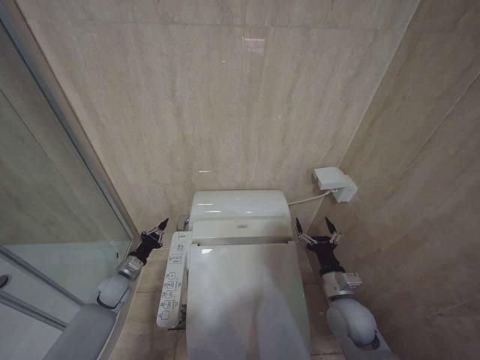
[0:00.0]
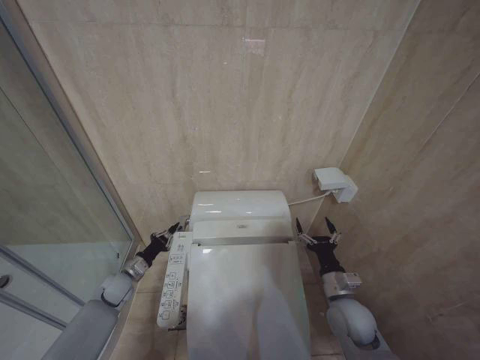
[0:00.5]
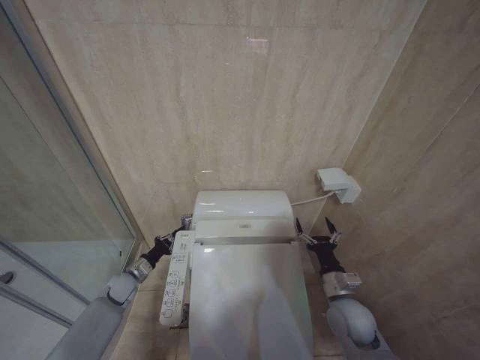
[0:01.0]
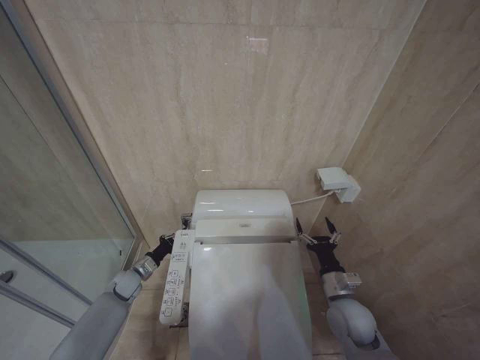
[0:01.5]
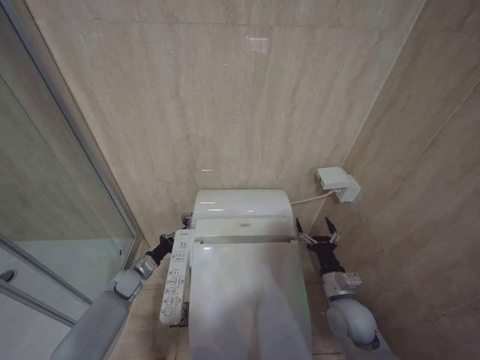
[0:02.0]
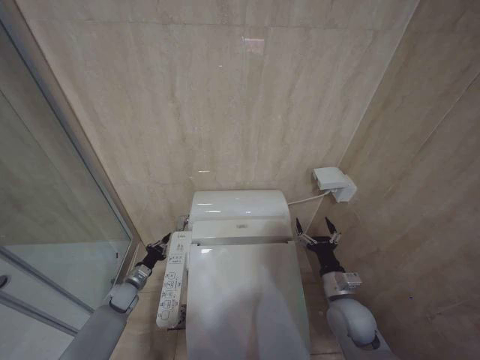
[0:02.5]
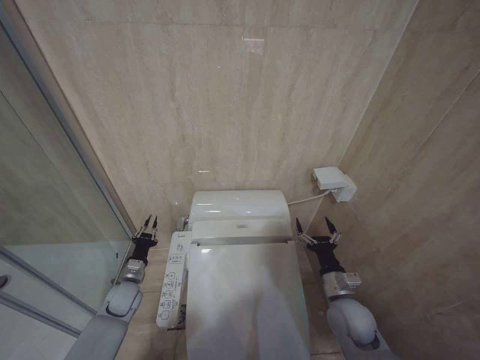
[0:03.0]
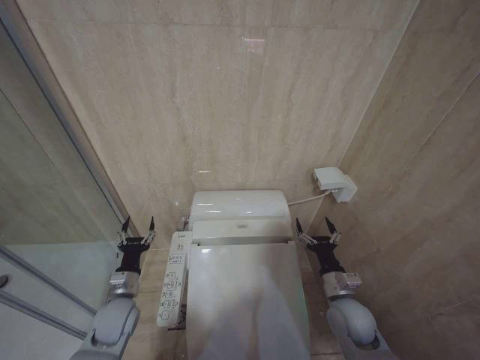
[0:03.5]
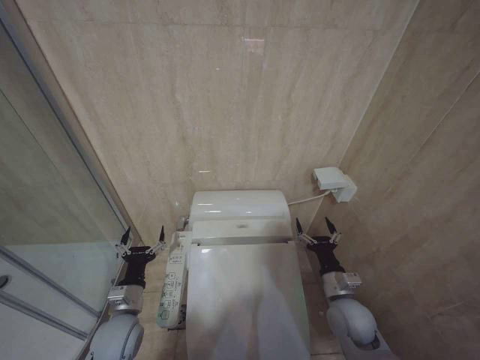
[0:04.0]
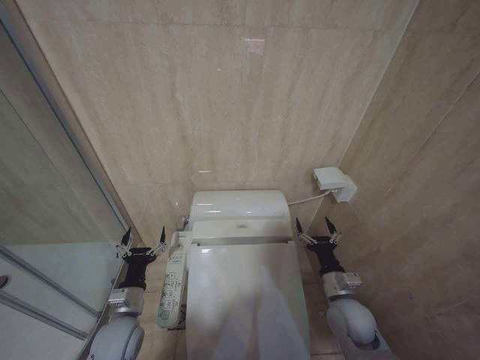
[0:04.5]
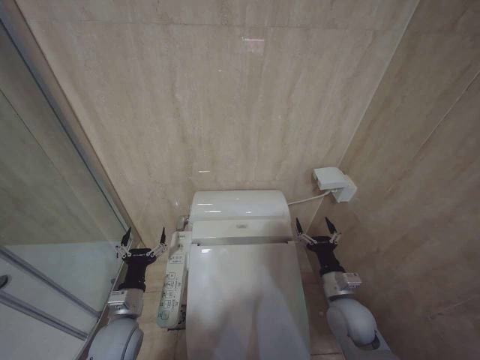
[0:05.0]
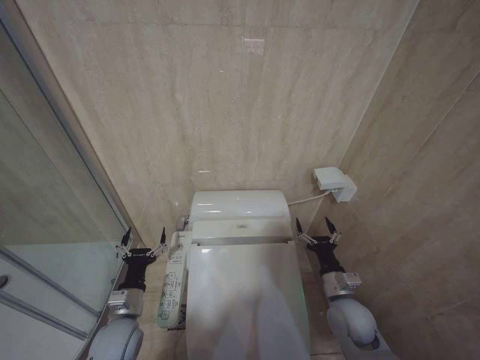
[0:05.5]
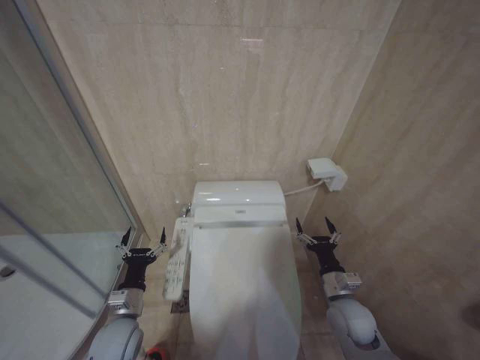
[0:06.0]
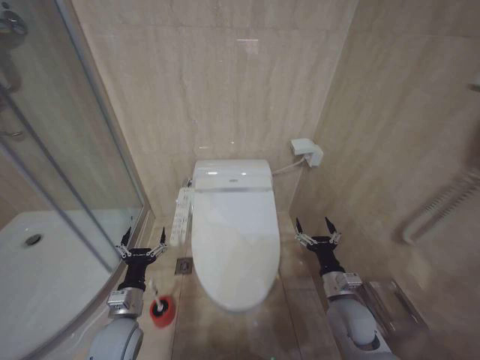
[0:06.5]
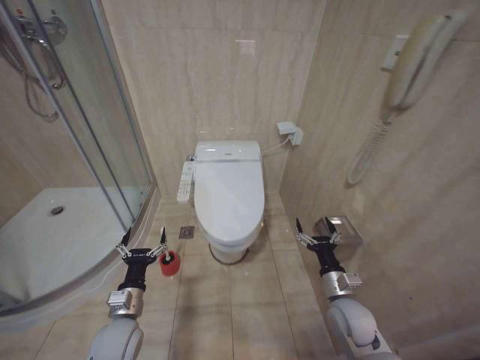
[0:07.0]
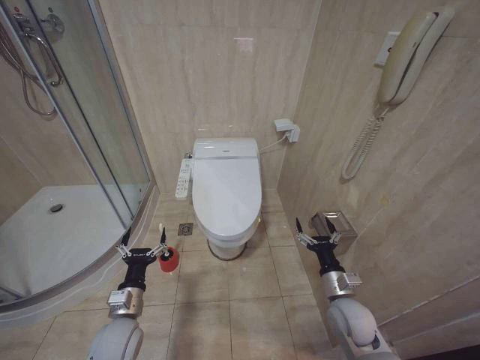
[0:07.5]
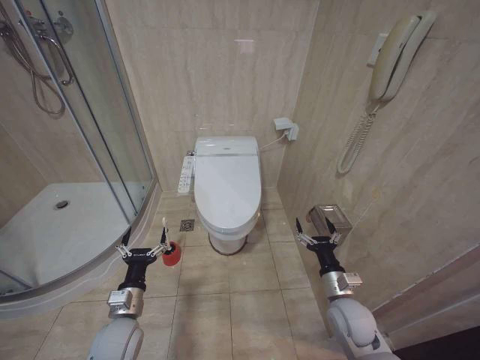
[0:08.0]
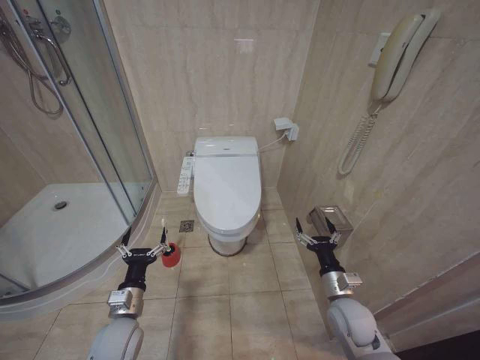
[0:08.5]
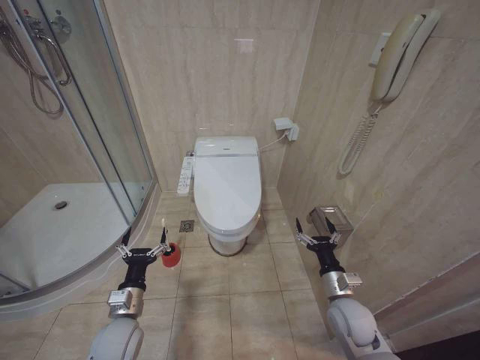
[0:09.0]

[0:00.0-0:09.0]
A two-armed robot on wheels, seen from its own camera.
Task of the whole recording: Open the toilet lid, clean the toilet bowl with a toilet brush, close the toilet lid, and flush.
0:00.0 to 0:02.0: The grippers move only a little.
0:02.0 to 0:04.5: The left gripper travels backward, upward and to the right by about 20 cm, and opens up.
0:07.0 to 0:09.0: Neither gripper changes place.
